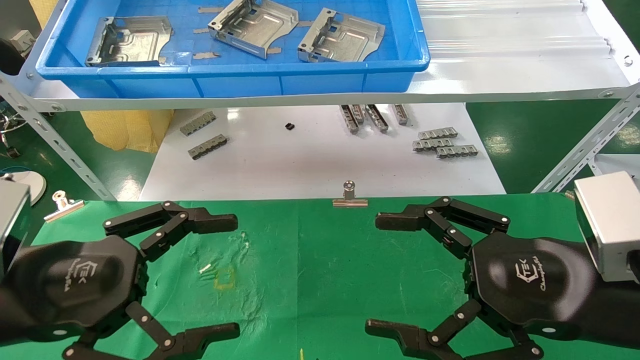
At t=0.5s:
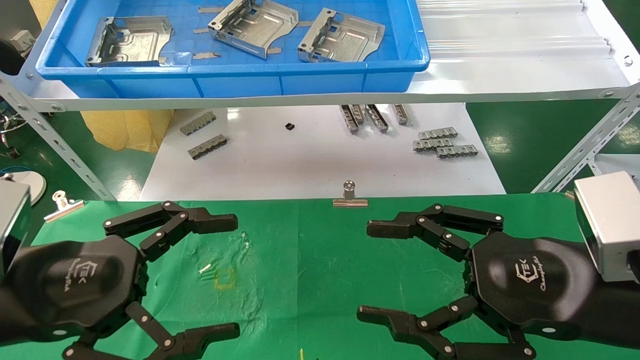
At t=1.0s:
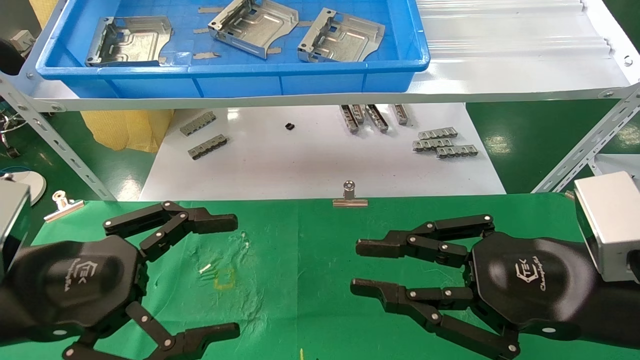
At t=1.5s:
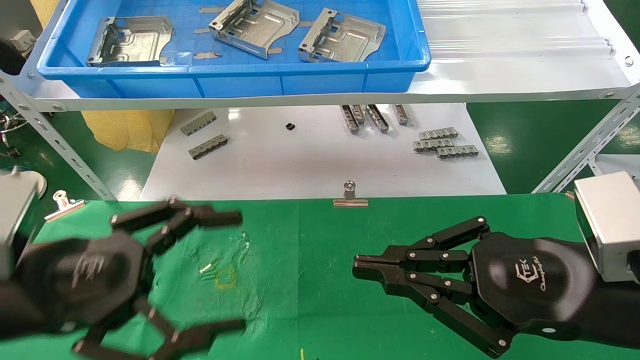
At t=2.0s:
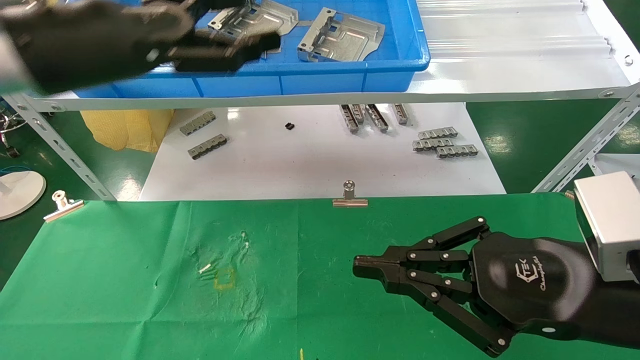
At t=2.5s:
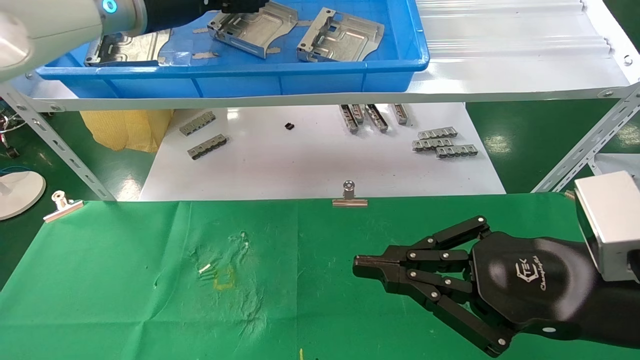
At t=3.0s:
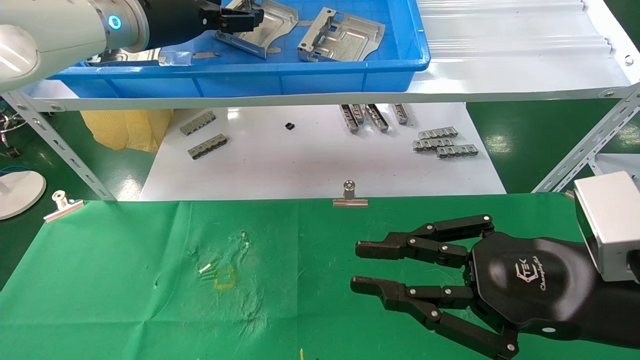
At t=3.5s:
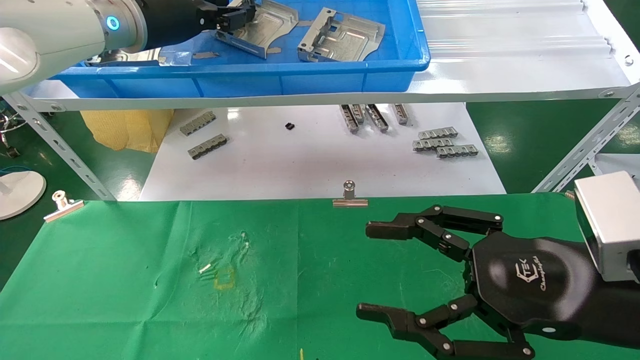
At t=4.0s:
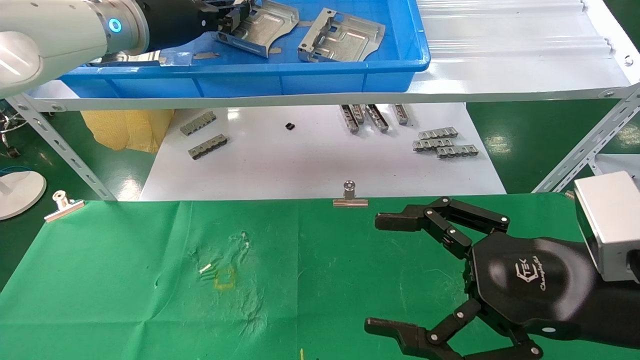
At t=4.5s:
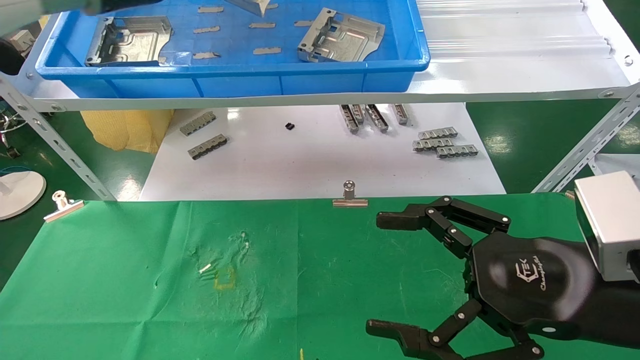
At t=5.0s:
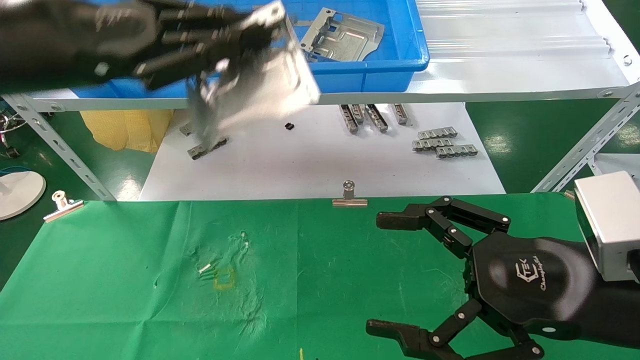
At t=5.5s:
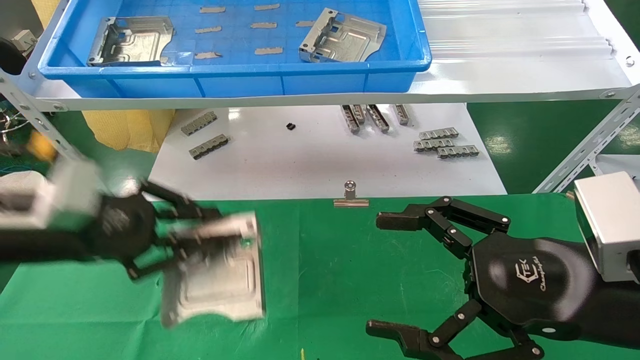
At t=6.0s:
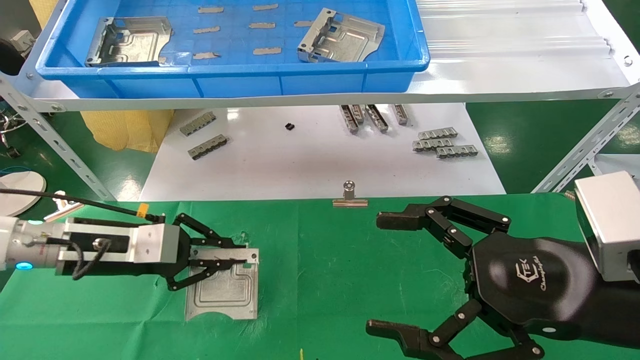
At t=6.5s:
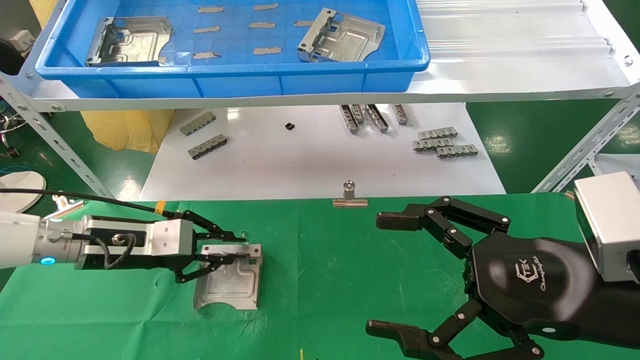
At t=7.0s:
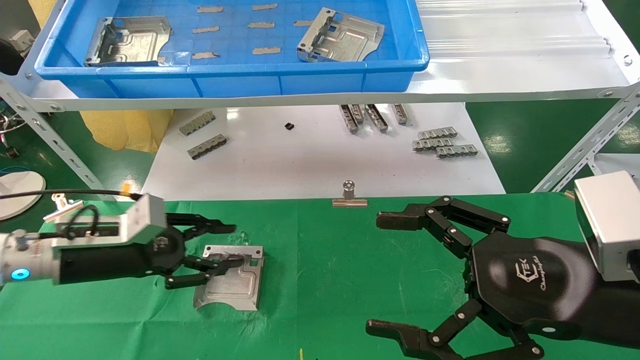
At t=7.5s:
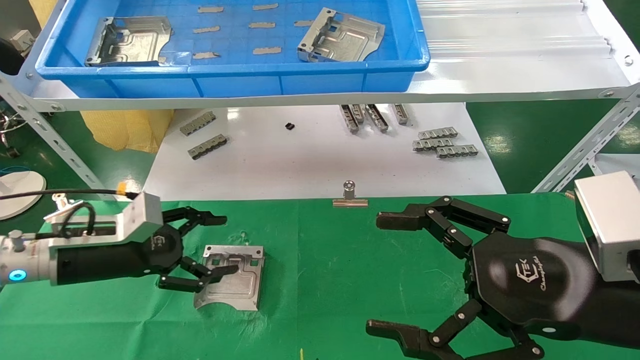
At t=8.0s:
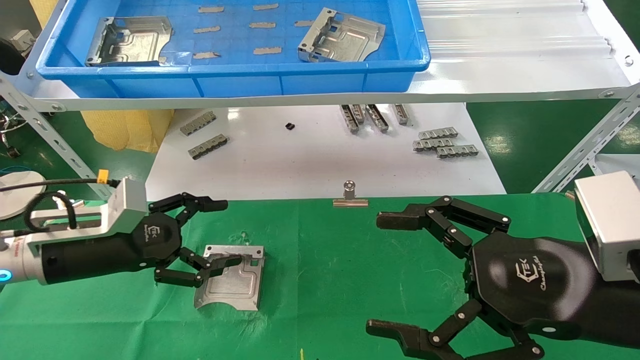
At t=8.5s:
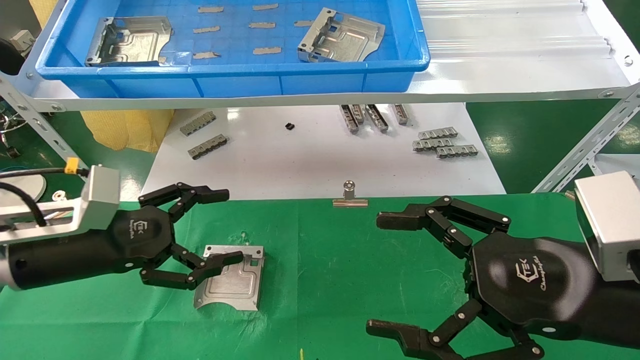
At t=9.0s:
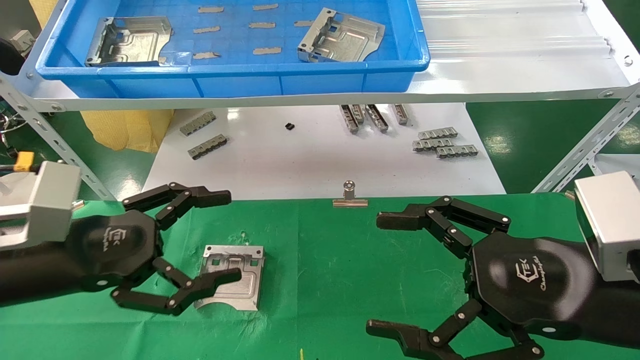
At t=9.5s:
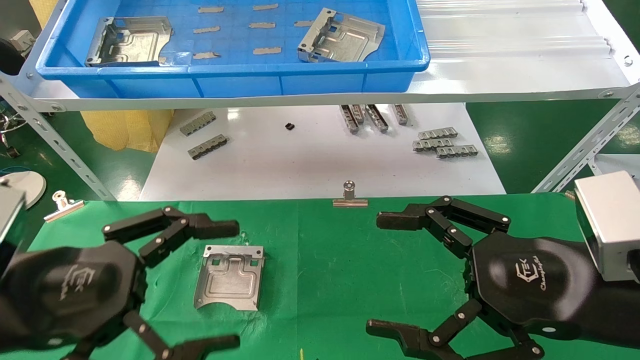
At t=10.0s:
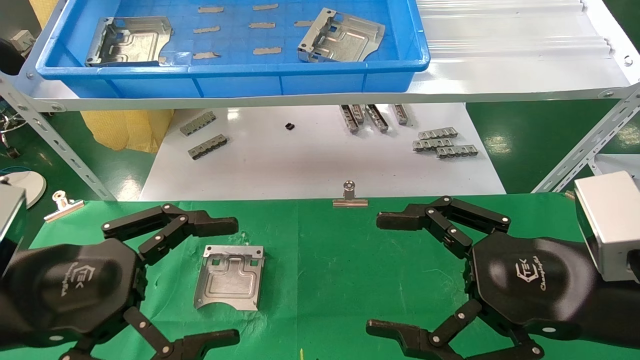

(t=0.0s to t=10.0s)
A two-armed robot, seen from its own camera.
Task of the whole recording: use the mechanical arm to pick up the parts and place them on the table.
Step, t=2.0s - t=3.5s: Pick up the hard drive bracket from the feeding area.
Step, t=4.0s - t=7.0s: Place the hard drive bracket into the box.
t=0.0s - t=2.0s: The left gripper heads upward and forward, covering approximately 20 cm. The right gripper closes.
t=2.0s - t=4.0s: The left gripper goes approximately 10 cm forward and upward, and closes, while the right gripper opens.
t=4.0s - t=6.0s: The left gripper travels downward by roughly 25 cm.
t=6.0s - t=8.0s: The left gripper opens.
t=8.0s - t=10.0s: The left gripper is displaced backward by about 15 cm.

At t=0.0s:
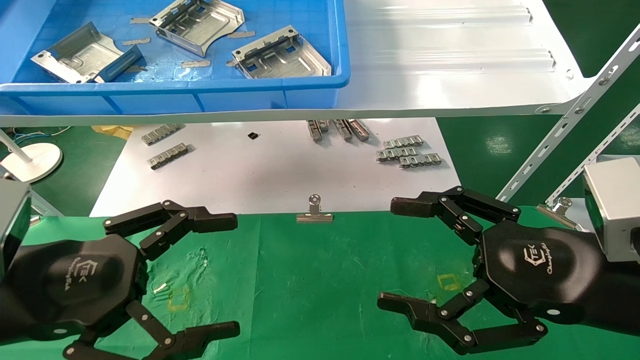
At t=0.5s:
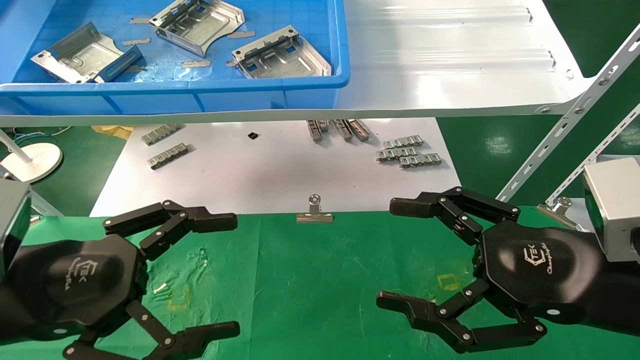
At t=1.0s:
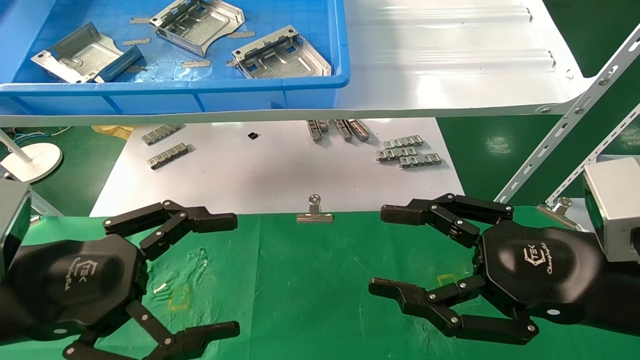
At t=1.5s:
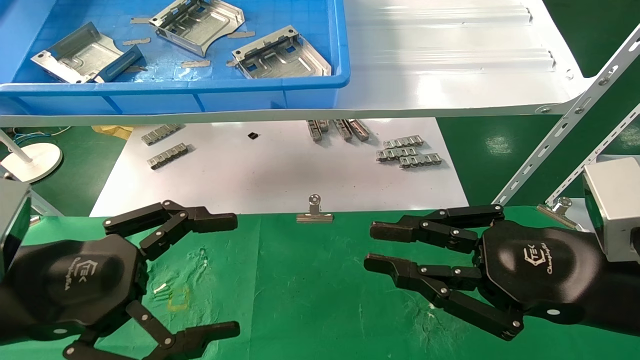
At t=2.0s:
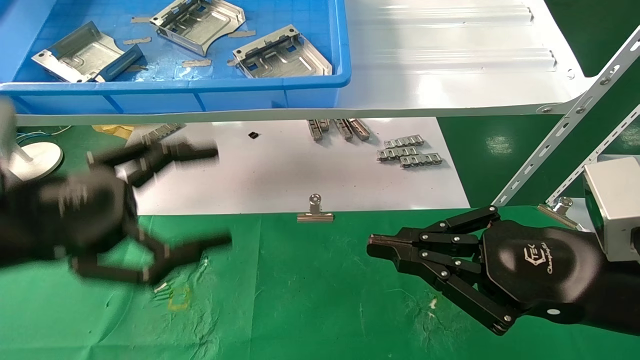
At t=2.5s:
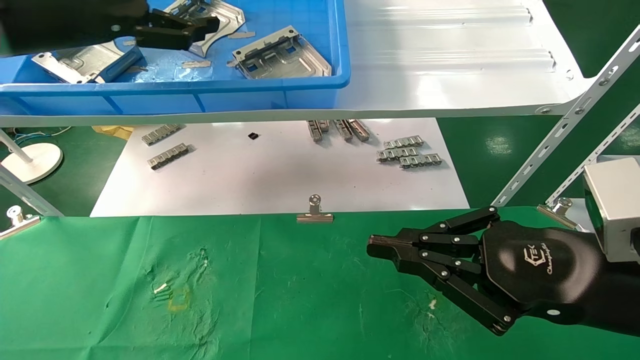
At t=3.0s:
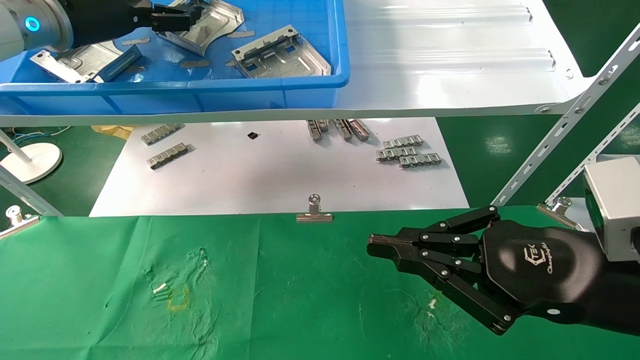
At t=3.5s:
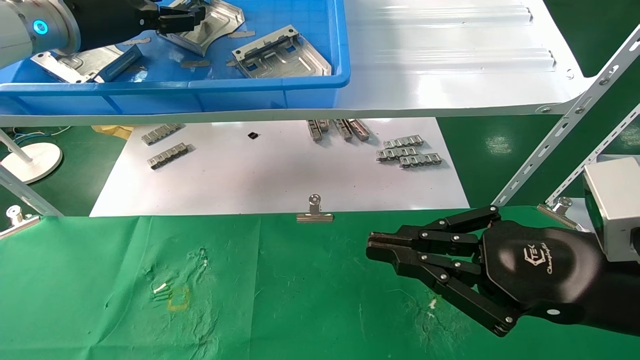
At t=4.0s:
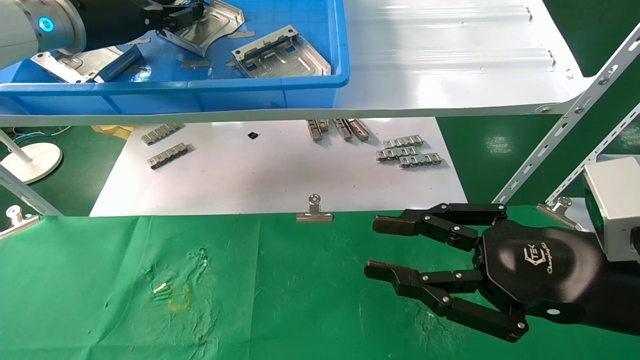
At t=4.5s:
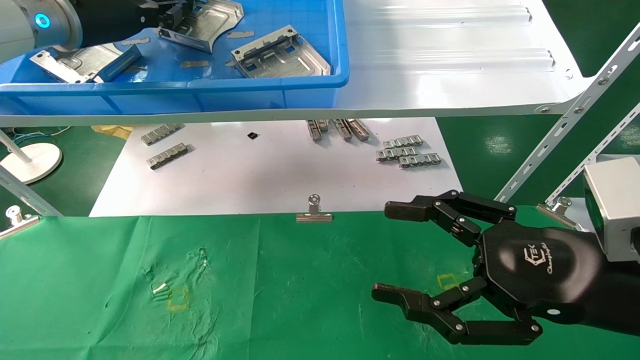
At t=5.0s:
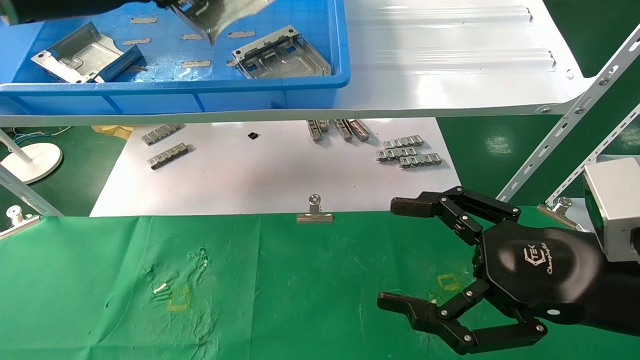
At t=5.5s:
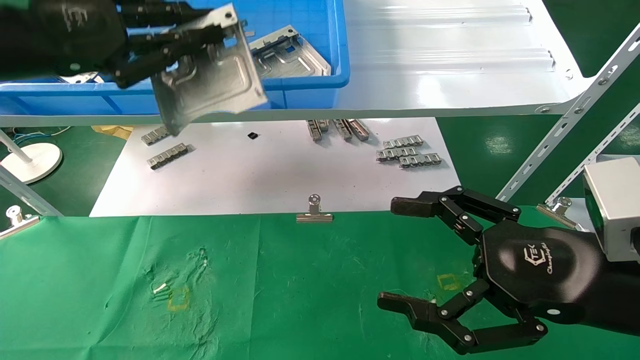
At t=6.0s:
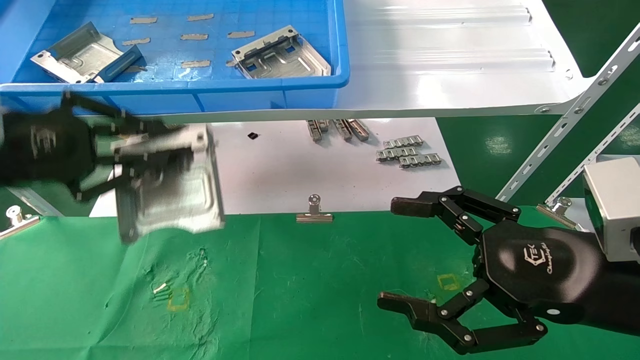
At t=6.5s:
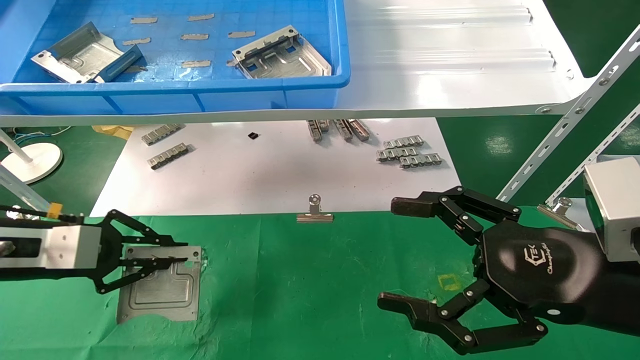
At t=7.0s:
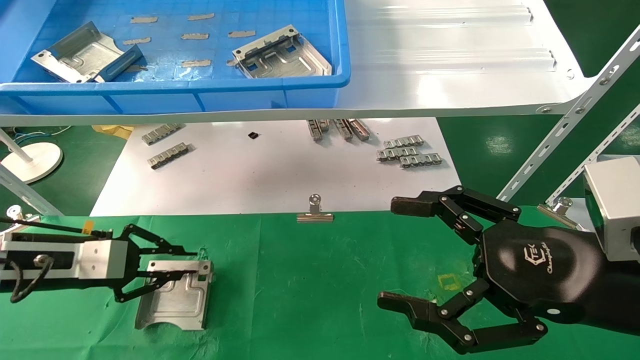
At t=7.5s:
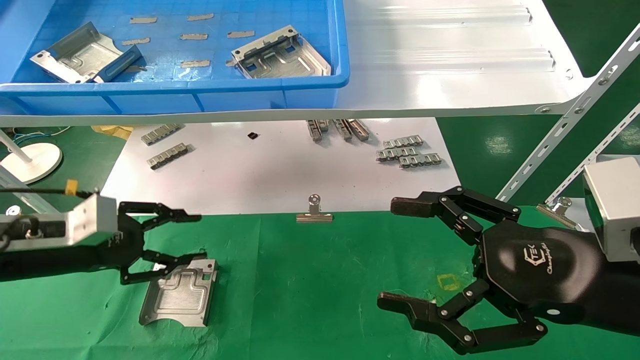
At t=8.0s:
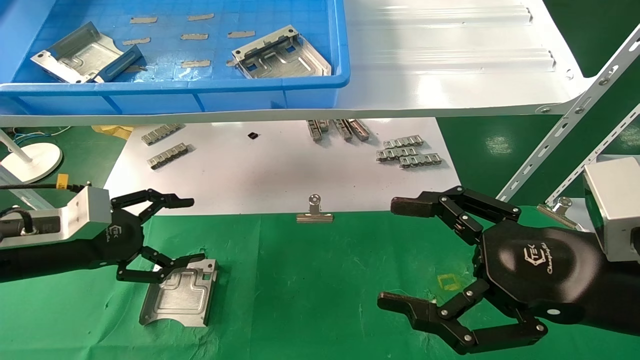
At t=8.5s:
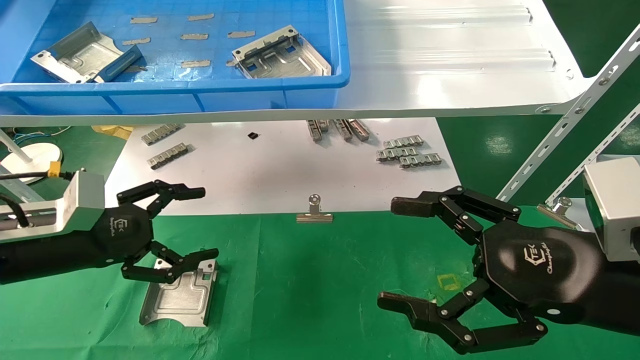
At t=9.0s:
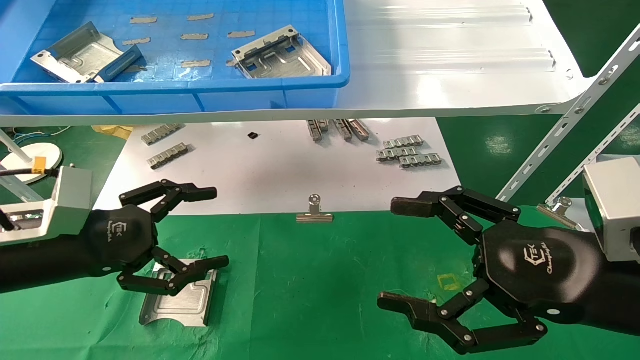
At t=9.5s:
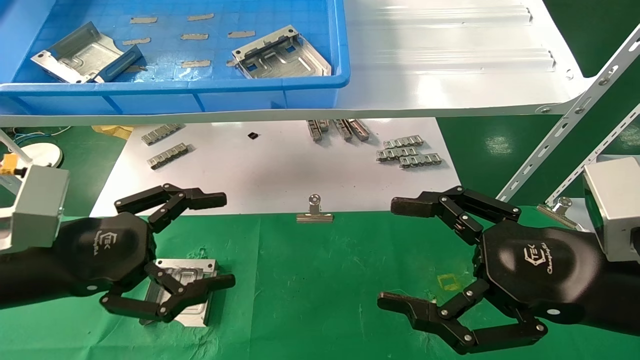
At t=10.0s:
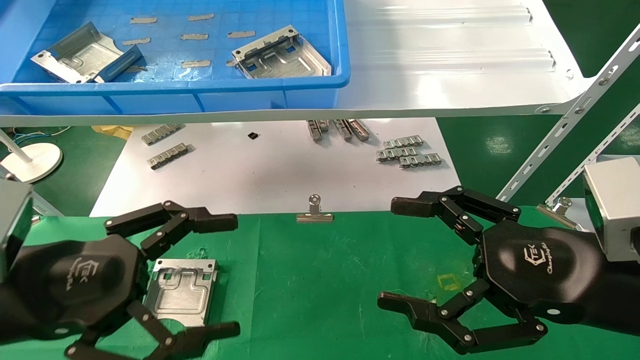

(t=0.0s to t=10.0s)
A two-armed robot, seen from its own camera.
Task of the whole recording: use the mechanical arm to pick up the parts and place them on the table.
Step, t=1.5s - t=4.5s: Pick up the hard drive bracket from the feeding area.
Step, t=5.0s - t=8.0s: Place the hard drive bracket into the box.
t=0.0s - t=2.0s: The left gripper shifts roughly 5 cm upward. Meanwhile the right gripper closes its fingers.
t=2.0s - t=4.0s: The left gripper moves forward and upward, about 25 cm, and closes up.
t=4.0s - t=6.0s: The left gripper is displaced backward and downward by approximately 20 cm, and closes up, while the right gripper opens its fingers.
t=6.0s - t=8.0s: The left gripper goes roughly 15 cm downward and forward, and opens its fingers.
t=8.0s - t=10.0s: The left gripper moves backward and to the right, approximately 15 cm.
